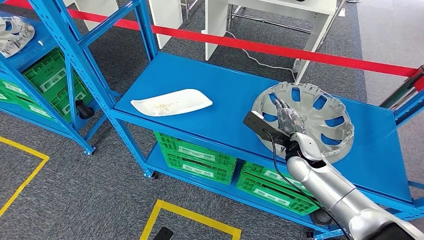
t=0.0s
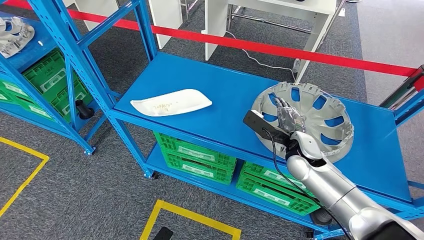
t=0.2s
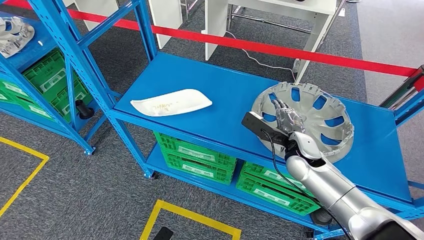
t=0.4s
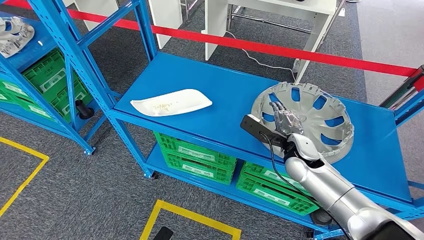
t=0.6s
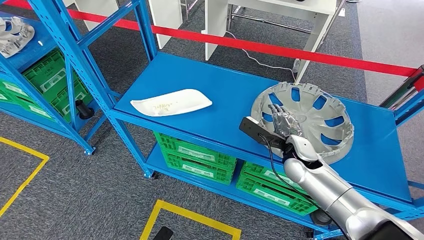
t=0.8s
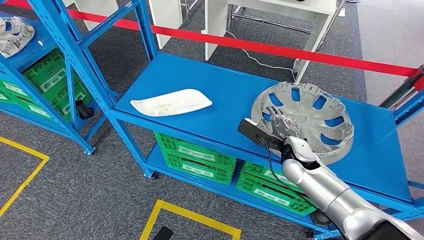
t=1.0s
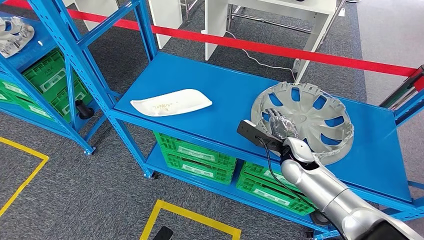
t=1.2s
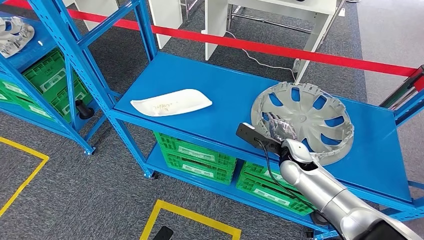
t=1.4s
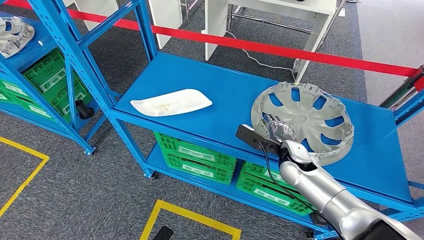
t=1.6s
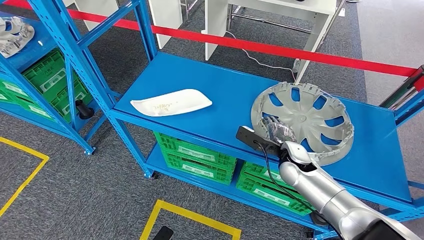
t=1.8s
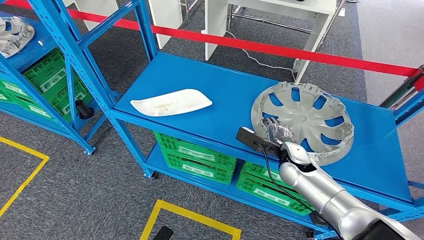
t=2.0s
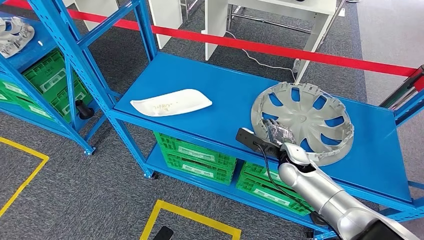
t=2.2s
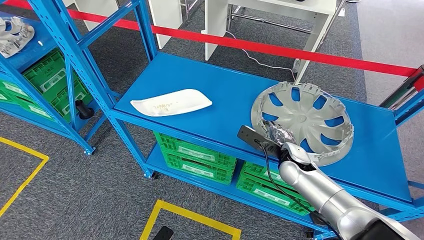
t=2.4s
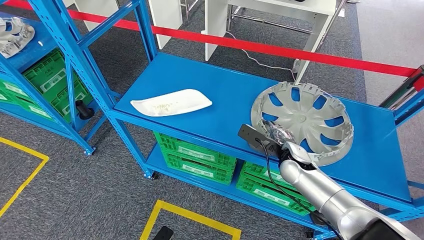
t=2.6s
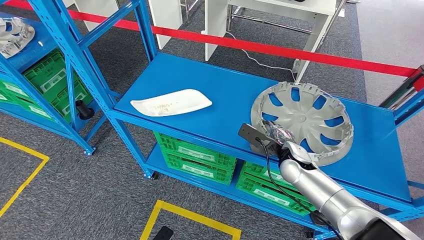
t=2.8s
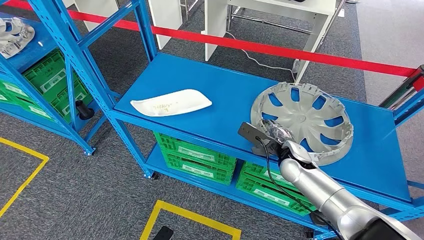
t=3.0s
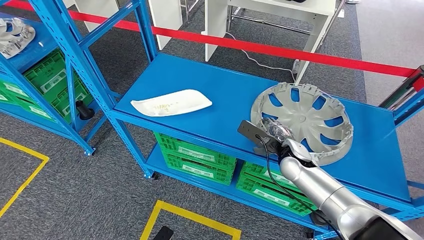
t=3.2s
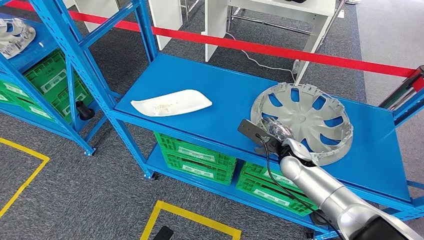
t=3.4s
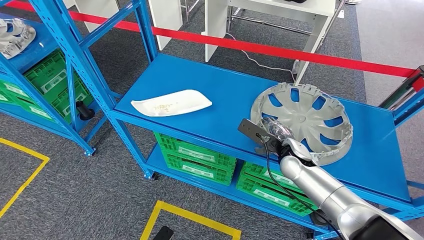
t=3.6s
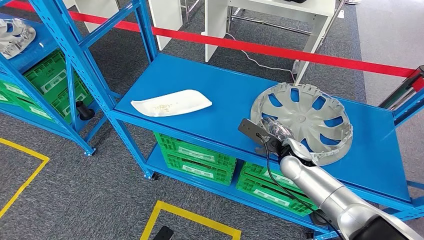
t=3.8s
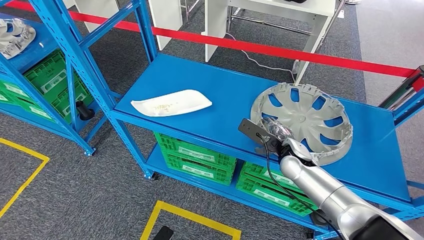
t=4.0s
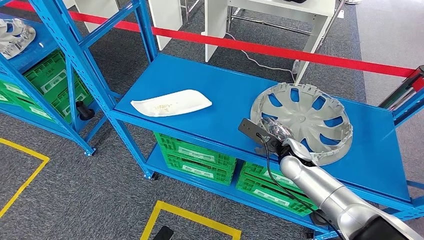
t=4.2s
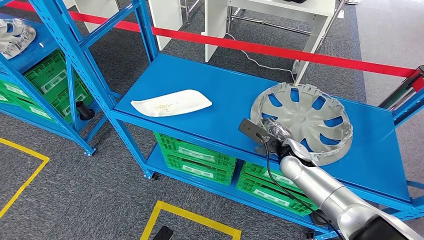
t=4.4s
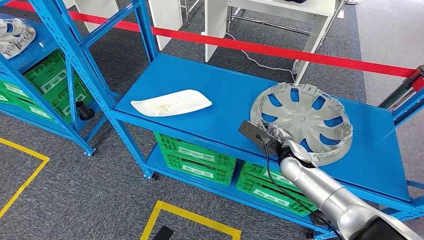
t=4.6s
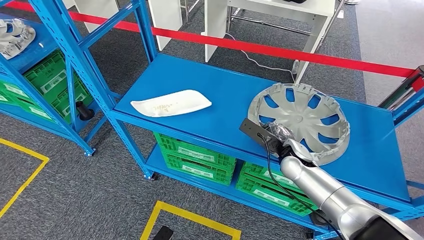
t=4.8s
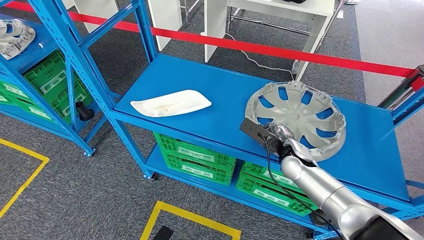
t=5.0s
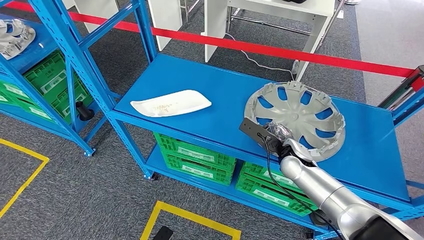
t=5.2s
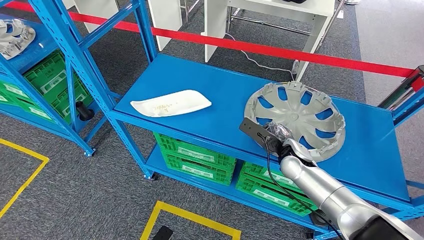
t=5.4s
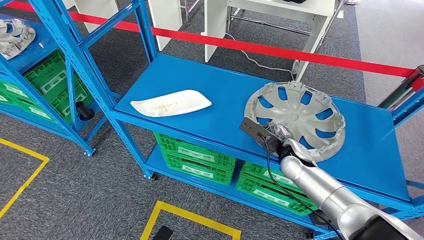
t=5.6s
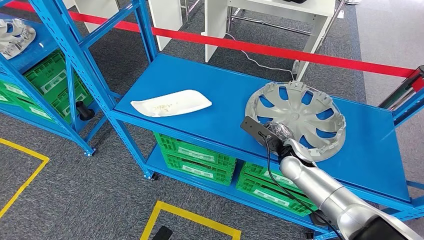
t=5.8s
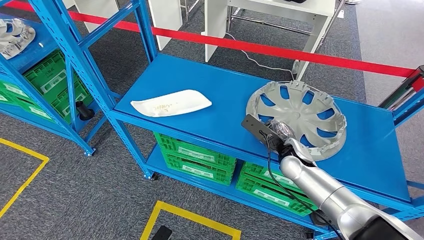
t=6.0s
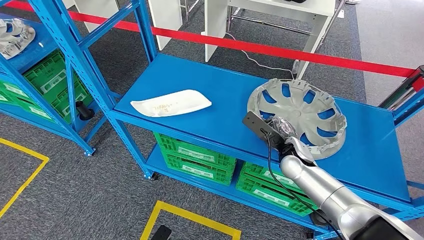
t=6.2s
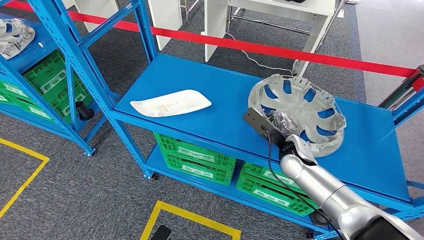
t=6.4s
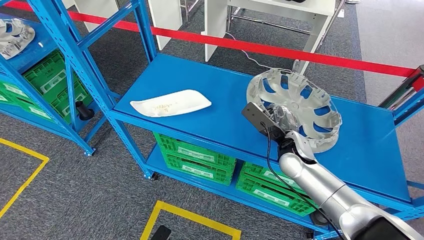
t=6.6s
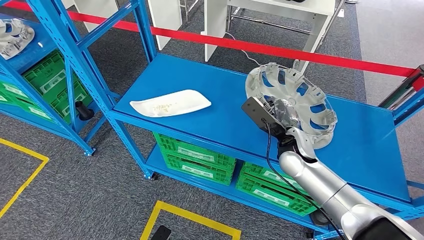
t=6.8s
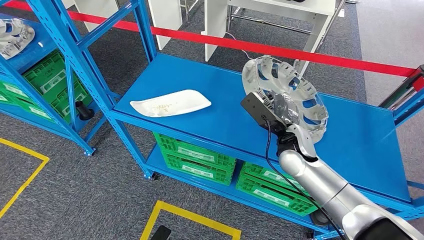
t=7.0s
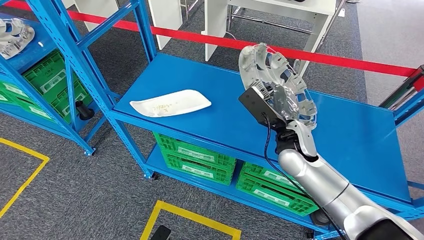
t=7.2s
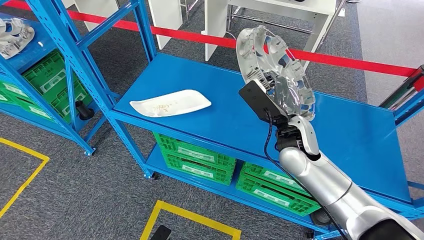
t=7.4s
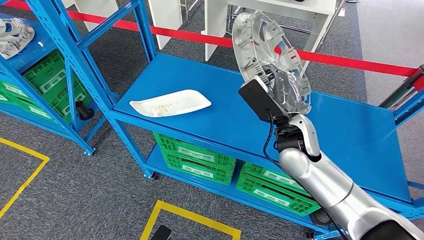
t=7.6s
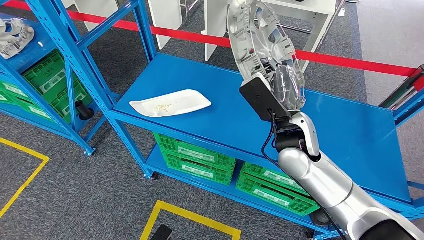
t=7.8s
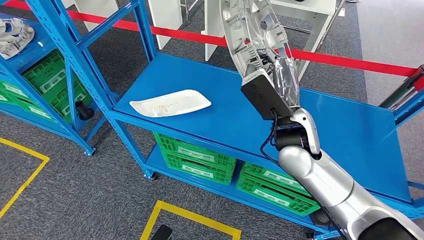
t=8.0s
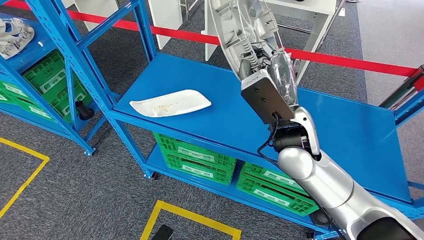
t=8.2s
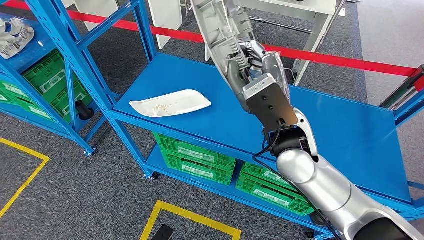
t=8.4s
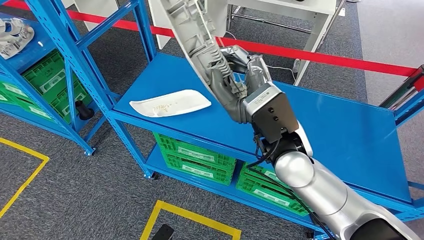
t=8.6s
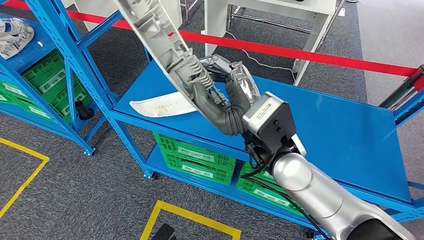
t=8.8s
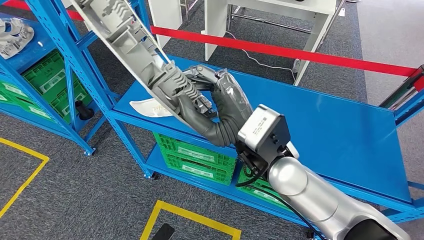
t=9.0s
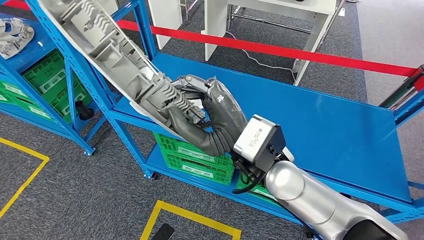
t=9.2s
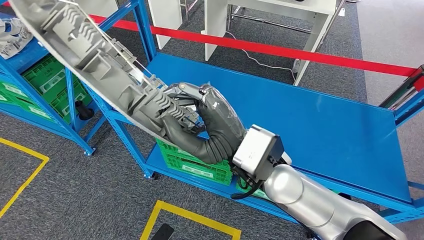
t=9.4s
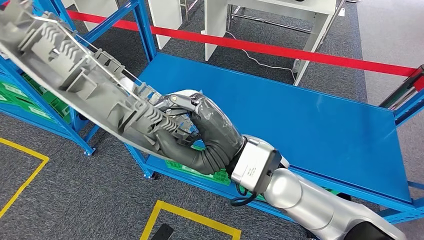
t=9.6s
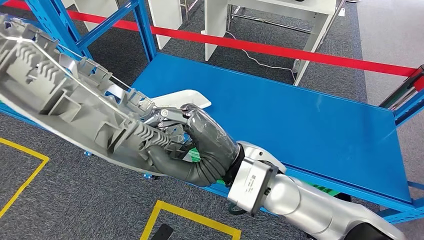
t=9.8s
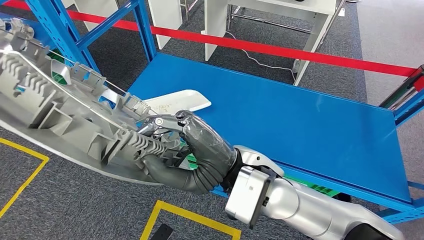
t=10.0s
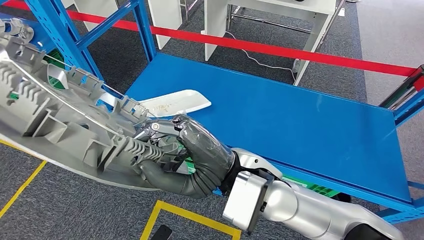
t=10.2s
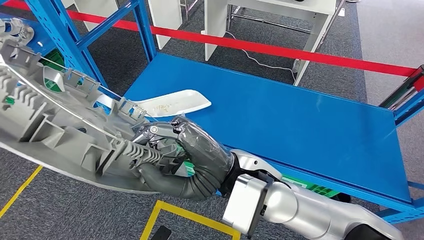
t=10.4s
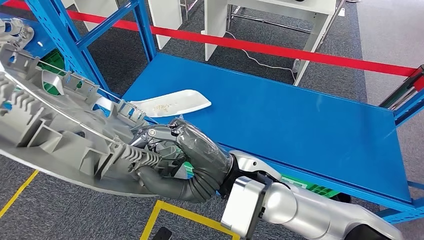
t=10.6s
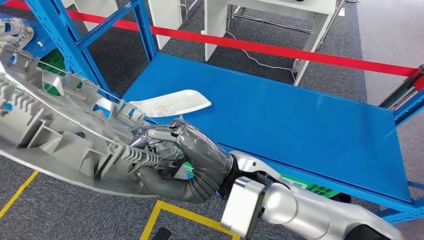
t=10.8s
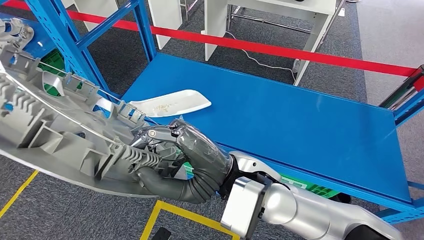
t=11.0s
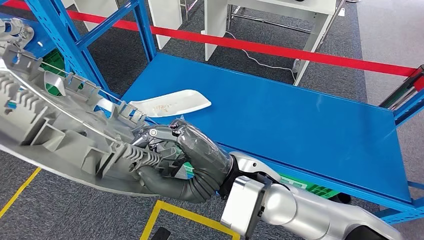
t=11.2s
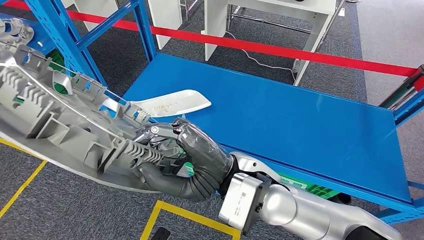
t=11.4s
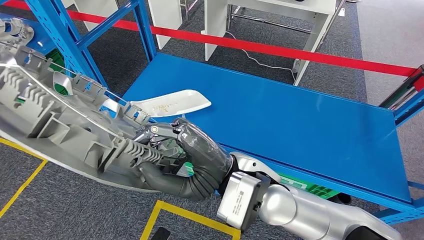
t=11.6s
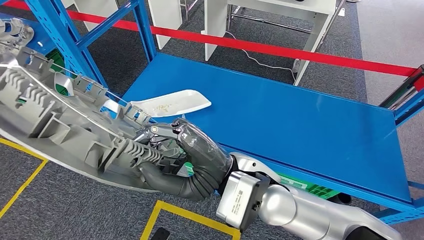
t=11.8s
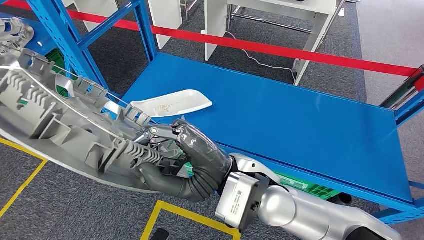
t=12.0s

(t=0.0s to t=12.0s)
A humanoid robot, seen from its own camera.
Step, t=0.0s - t=8.6s: Pick up the large material from the shelf.
t=0.0s - t=3.0s: There are only small adjustments of the hands.
t=3.0s - t=4.4s: Both hands stay put.
t=4.4s - t=6.0s: The hands make only small movements.
t=6.0s - t=7.6s: The right hand travels upward by some 15 cm.
t=10.4s - t=12.0s: Both hands stay about where they are.

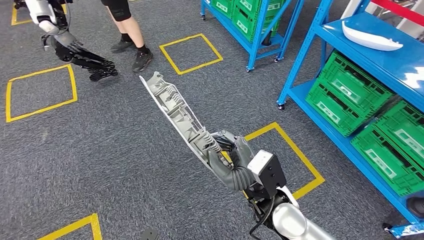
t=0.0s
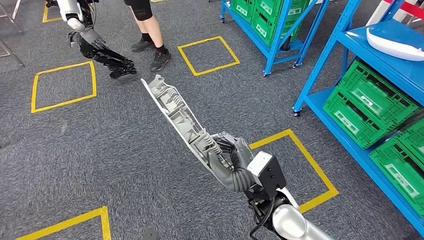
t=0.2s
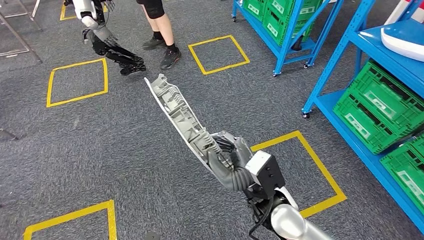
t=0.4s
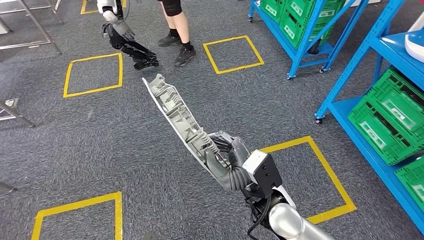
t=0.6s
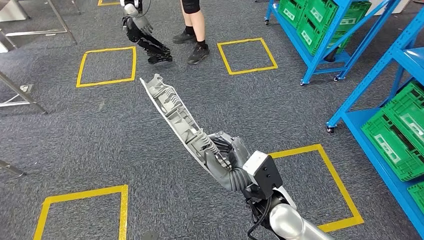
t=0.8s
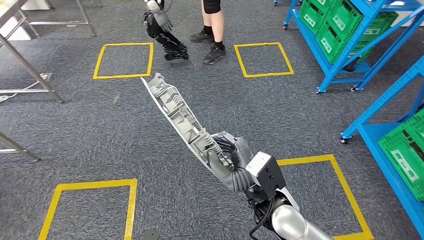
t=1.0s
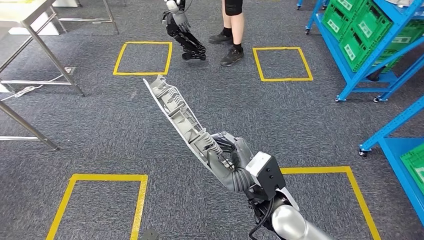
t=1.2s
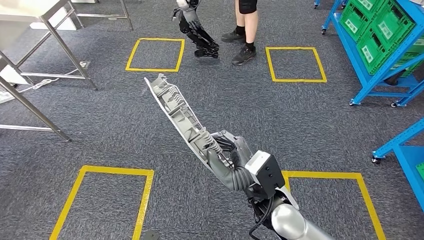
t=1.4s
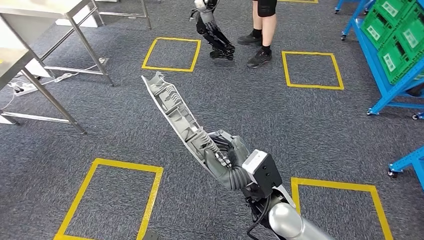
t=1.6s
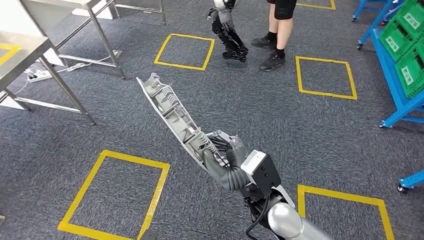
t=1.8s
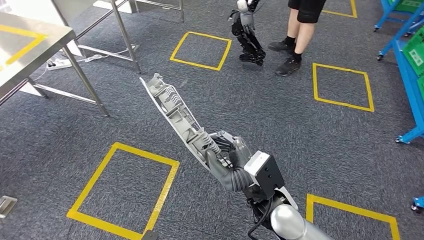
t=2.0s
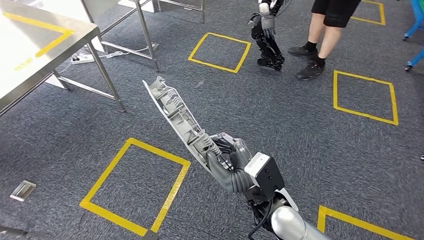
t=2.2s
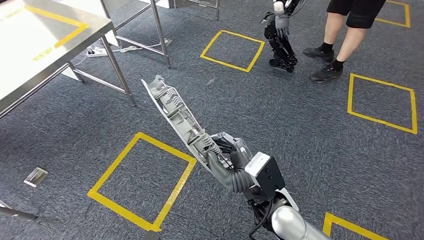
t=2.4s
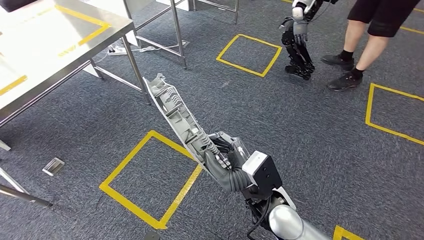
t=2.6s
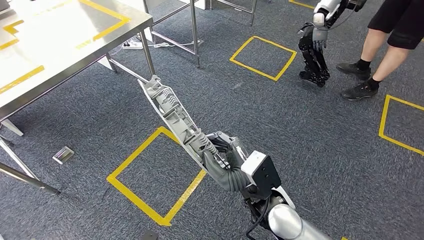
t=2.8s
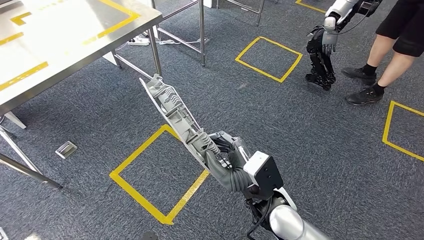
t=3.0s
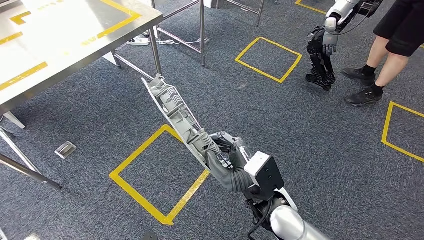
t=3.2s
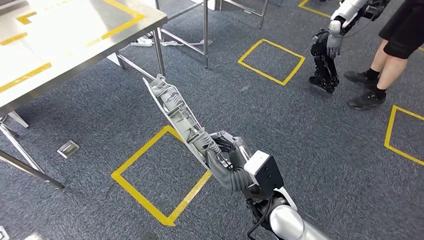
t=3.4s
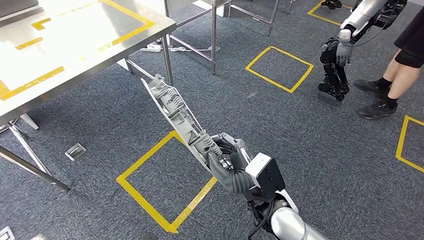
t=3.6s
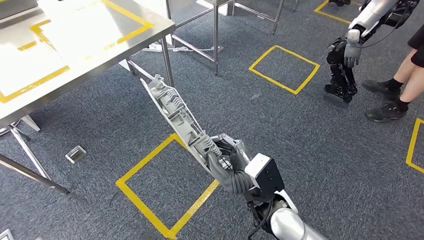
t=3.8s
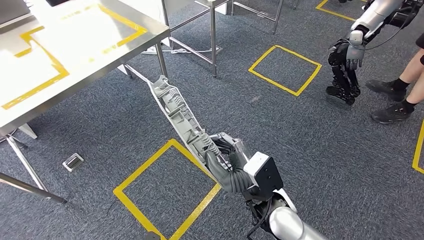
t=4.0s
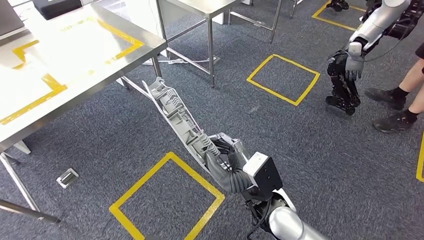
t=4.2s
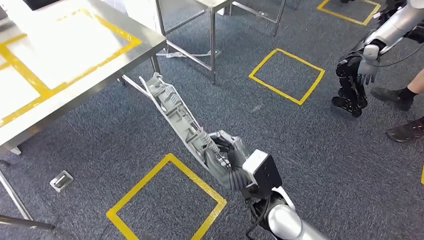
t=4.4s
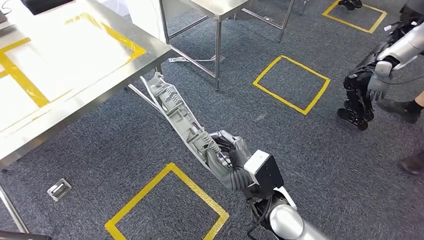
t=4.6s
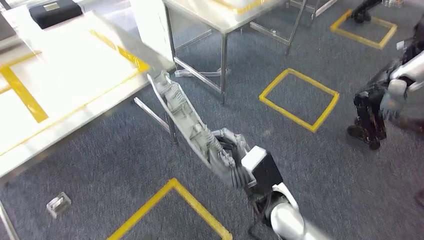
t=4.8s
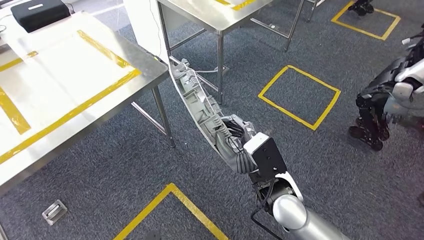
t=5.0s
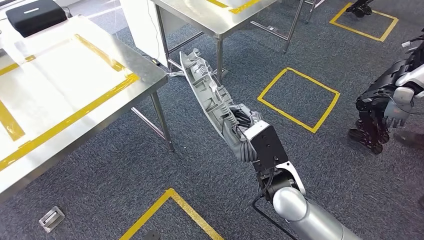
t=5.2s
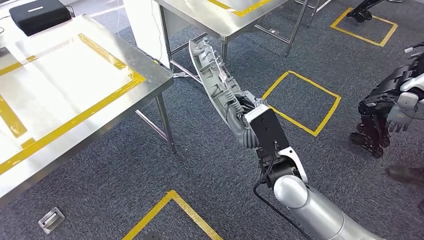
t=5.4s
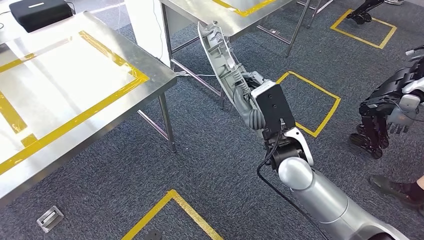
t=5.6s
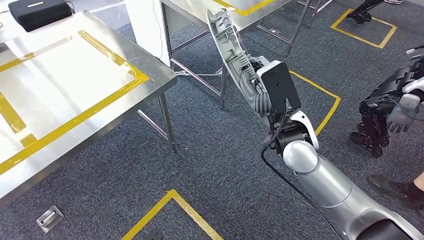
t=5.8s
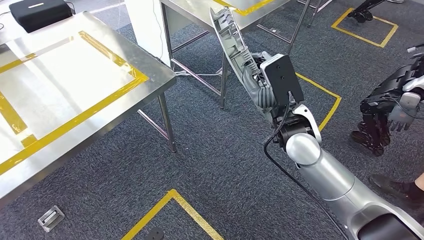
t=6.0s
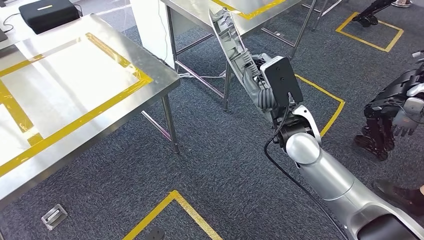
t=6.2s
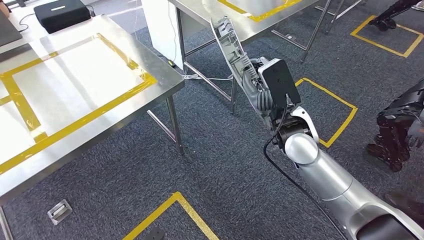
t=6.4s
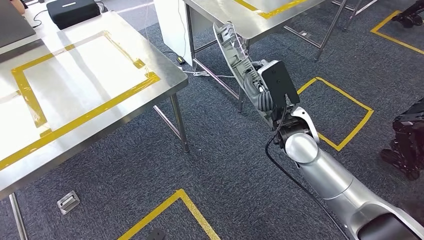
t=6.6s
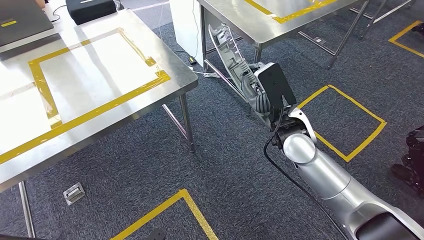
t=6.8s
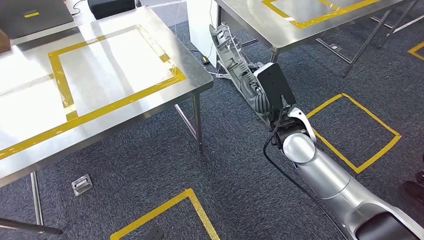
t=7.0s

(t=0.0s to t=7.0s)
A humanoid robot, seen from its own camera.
Step, t=0.0s - t=5.8s: Move the large material to the workbench.
